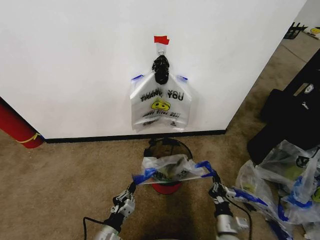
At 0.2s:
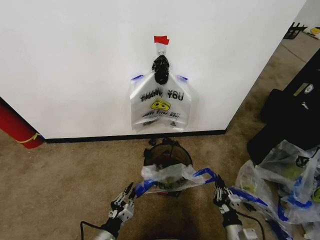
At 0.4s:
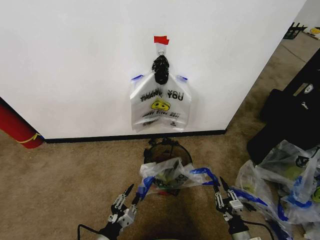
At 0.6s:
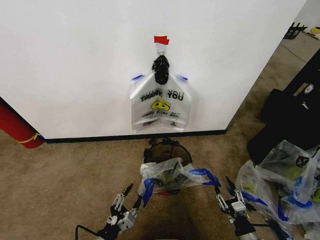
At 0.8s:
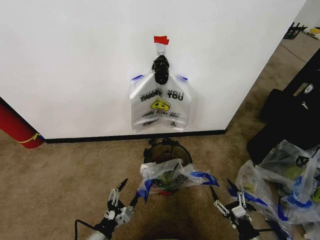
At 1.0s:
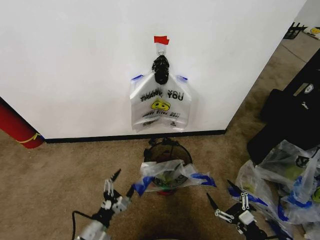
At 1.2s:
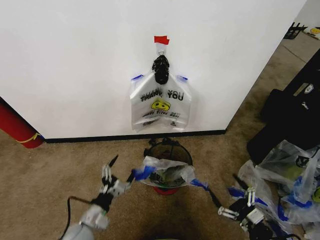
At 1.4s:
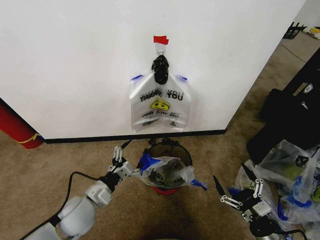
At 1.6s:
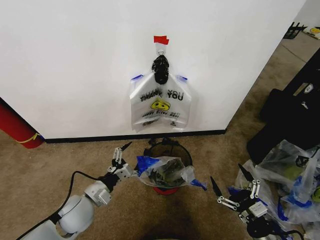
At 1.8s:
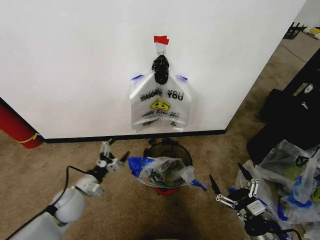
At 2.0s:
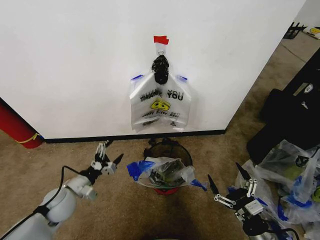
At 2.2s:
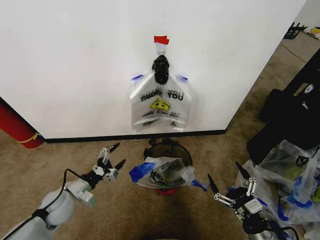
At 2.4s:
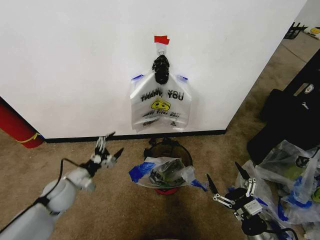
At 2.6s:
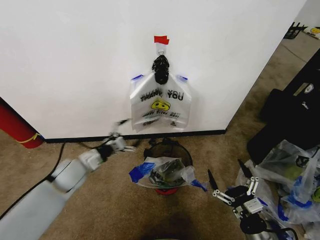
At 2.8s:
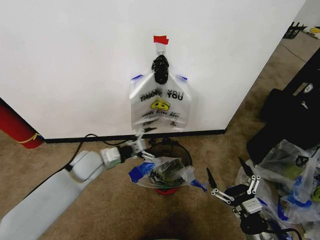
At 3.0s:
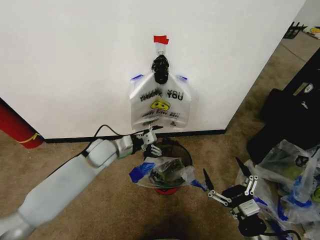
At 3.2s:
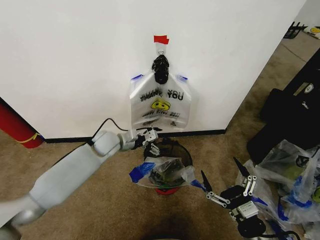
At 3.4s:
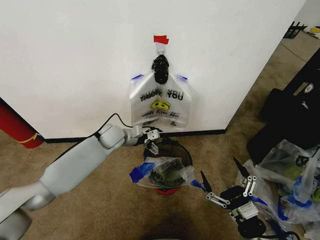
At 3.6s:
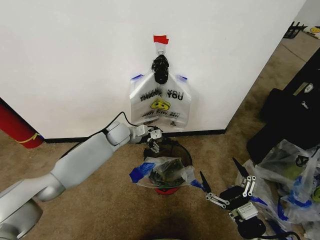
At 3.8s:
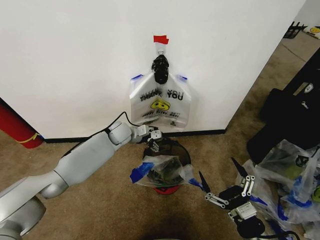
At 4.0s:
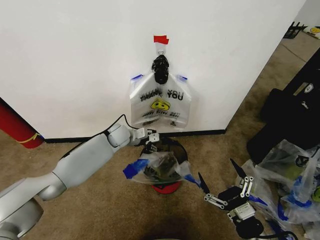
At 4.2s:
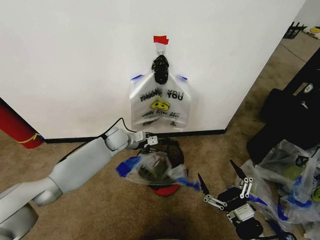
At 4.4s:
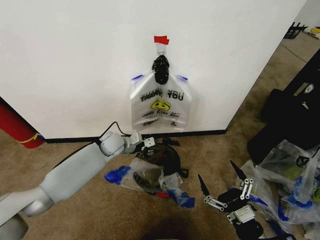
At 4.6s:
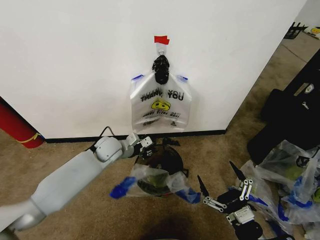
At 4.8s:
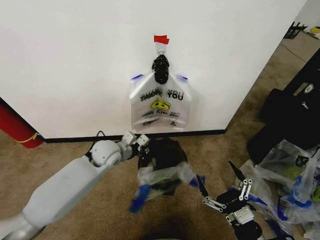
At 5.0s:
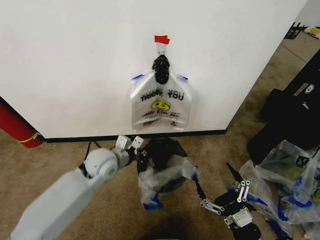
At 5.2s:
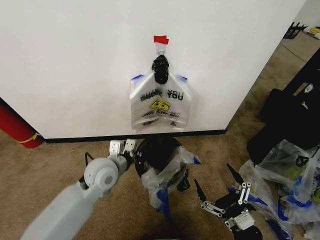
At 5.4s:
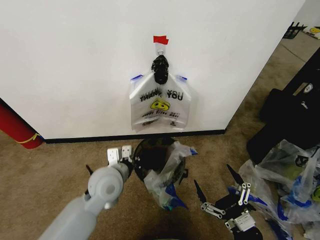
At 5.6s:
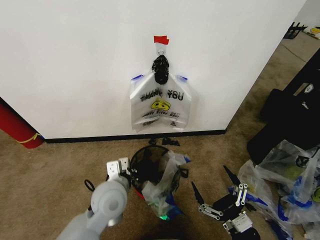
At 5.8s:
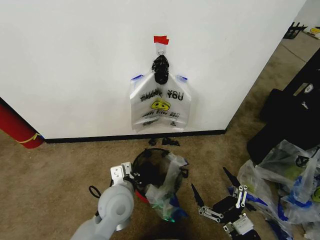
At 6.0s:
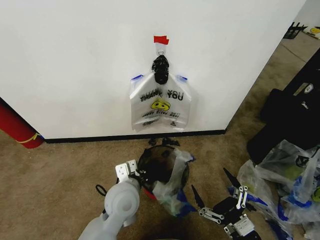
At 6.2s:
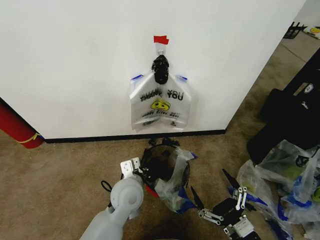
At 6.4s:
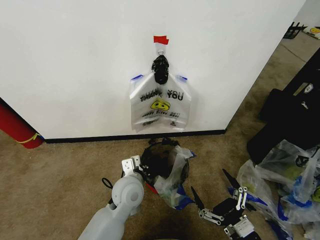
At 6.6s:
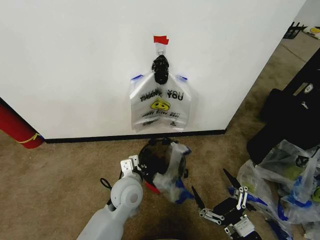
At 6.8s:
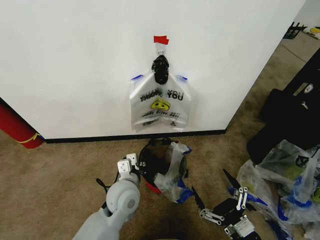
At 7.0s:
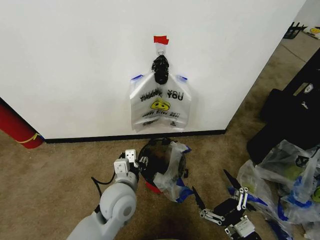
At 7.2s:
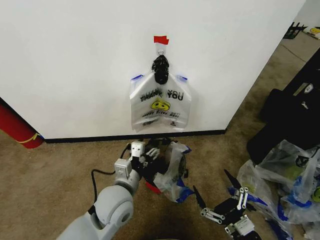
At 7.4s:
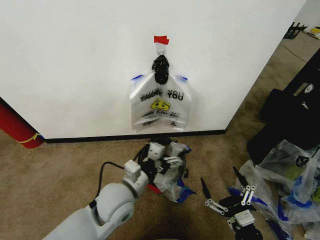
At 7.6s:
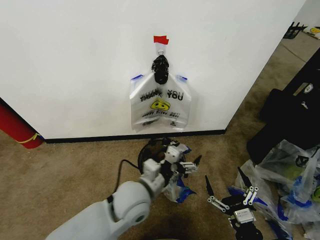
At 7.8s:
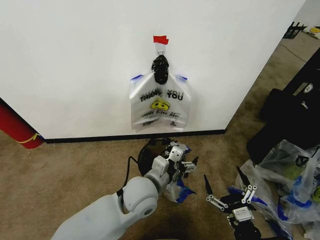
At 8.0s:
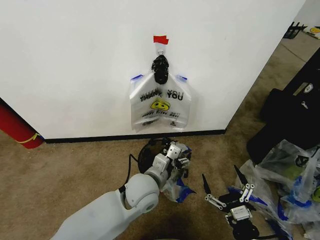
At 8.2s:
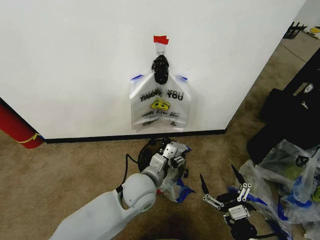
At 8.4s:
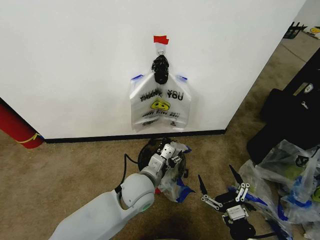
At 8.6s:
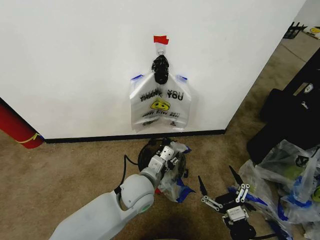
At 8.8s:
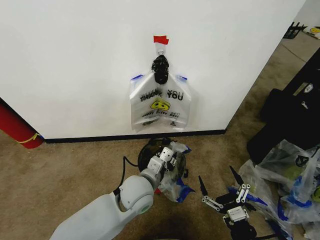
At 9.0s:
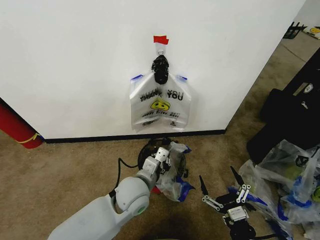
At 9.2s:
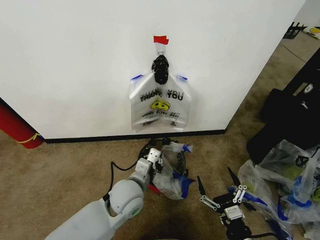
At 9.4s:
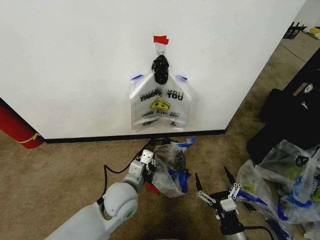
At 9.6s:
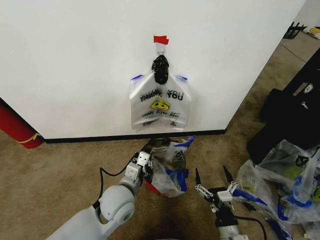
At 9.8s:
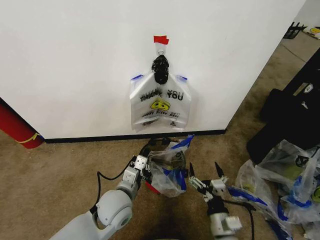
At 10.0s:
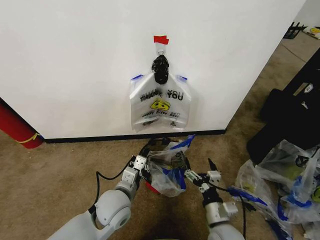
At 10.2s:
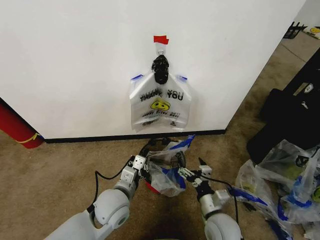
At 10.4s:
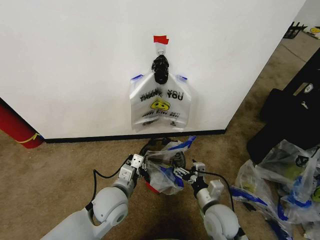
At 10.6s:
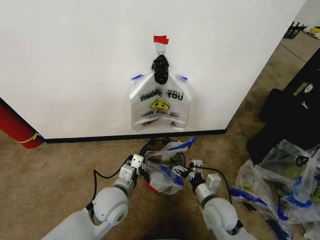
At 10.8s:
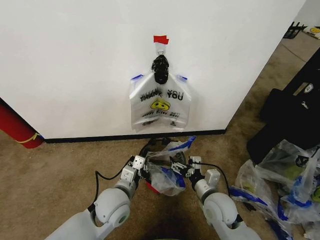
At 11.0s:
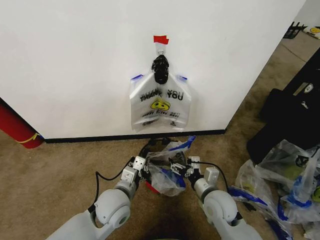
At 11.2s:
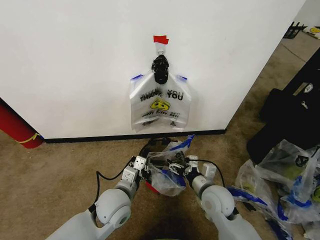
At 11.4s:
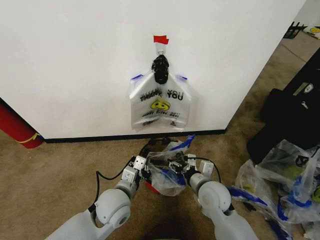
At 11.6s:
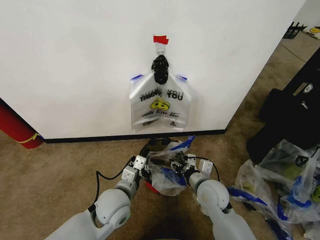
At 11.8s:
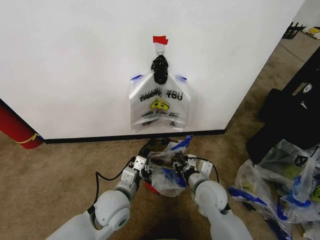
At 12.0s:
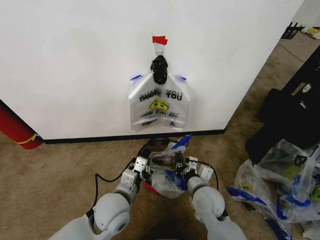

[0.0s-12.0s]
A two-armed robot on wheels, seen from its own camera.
Task of the whole recording: Pick up the garbage bag from the wall and place it over the trash bin.
0.0s to 1.6s: The left gripper is displaced upward and forward by some 15 cm, and opens up. The right gripper moves upward, to the right and backward, some 15 cm, and opens its fingers.
1.6s to 3.0s: The right gripper moves approximately 5 cm. The left gripper heads forward, covering about 15 cm.
3.0s to 4.4s: The left gripper heads forward, covering approximately 5 cm, and closes its fingers.
4.4s to 6.0s: The left gripper shifts approximately 25 cm backward.
6.0s to 7.6s: The left gripper opens.
7.6s to 9.0s: The left gripper closes its fingers.
9.0s to 10.4s: The left gripper heads to the left, covering approximately 5 cm; the right gripper moves forward and to the left, about 15 cm.
10.4s to 12.0s: The right gripper shifts approximately 5 cm forward, and closes its fingers.

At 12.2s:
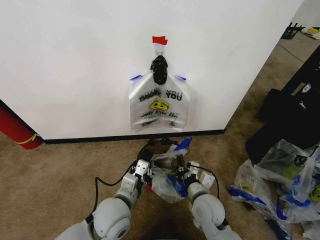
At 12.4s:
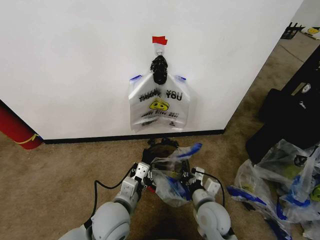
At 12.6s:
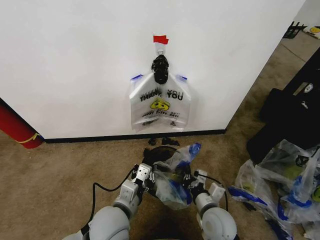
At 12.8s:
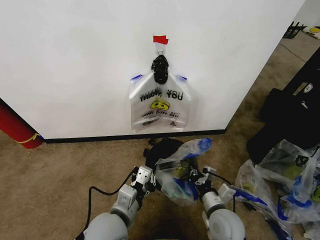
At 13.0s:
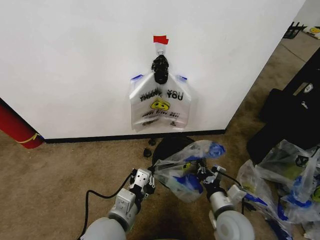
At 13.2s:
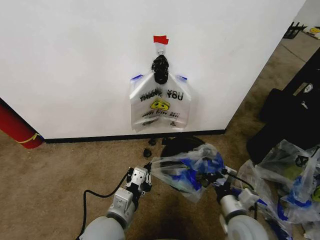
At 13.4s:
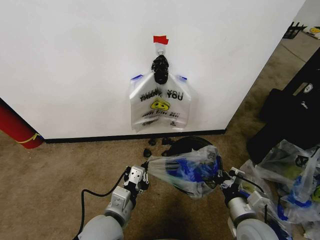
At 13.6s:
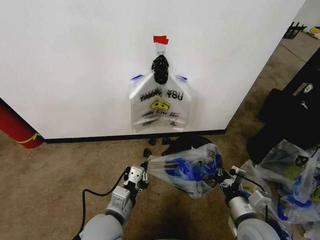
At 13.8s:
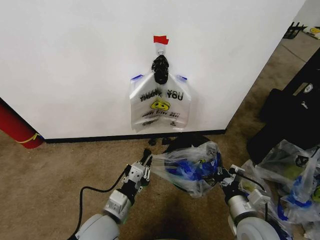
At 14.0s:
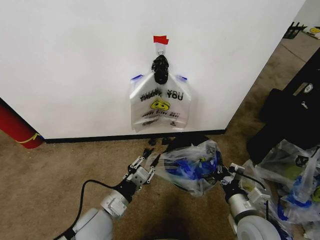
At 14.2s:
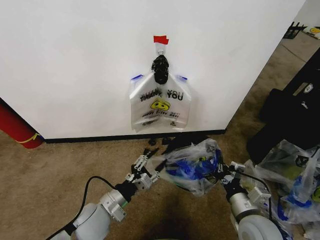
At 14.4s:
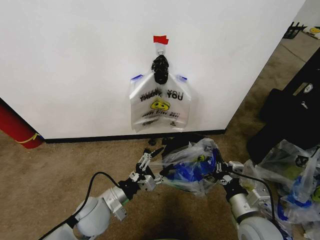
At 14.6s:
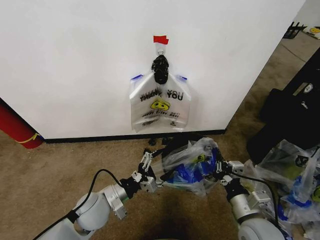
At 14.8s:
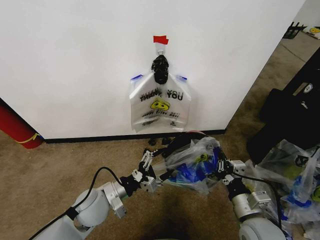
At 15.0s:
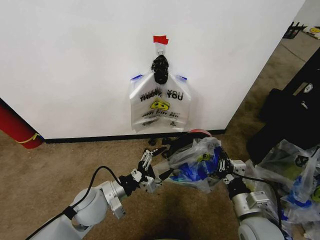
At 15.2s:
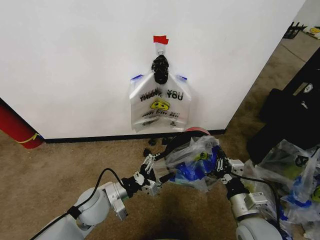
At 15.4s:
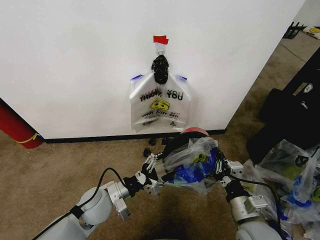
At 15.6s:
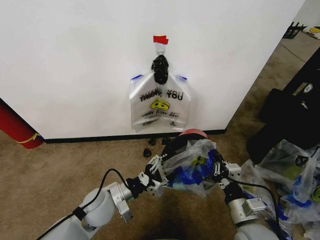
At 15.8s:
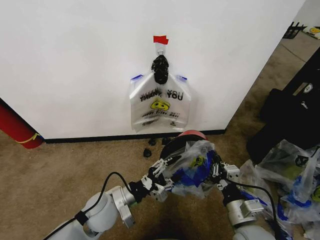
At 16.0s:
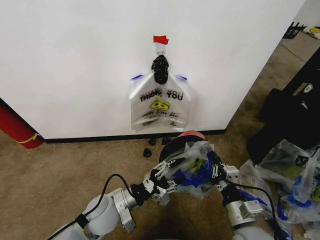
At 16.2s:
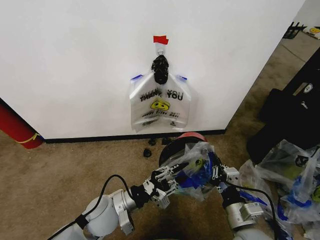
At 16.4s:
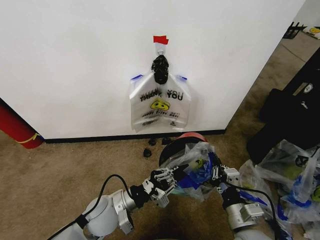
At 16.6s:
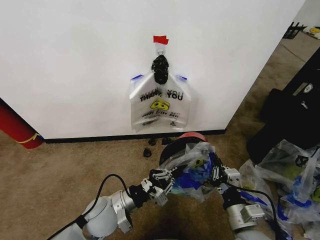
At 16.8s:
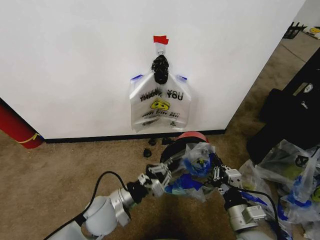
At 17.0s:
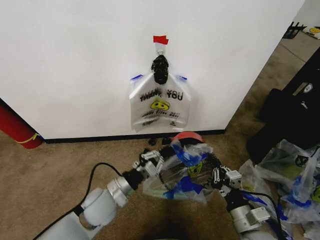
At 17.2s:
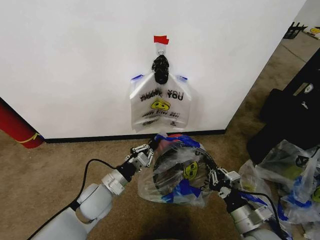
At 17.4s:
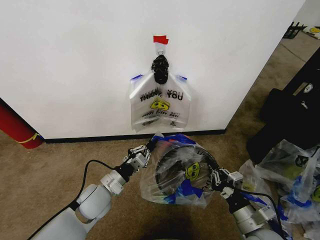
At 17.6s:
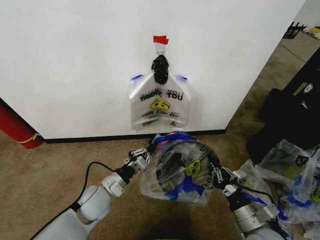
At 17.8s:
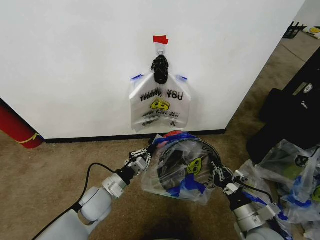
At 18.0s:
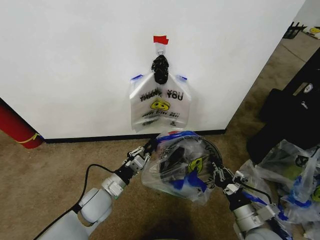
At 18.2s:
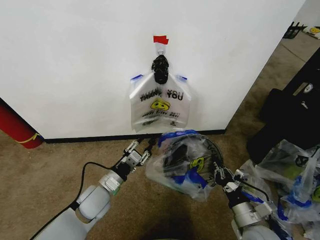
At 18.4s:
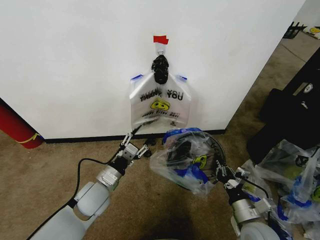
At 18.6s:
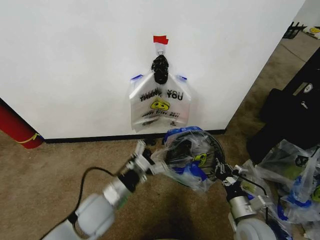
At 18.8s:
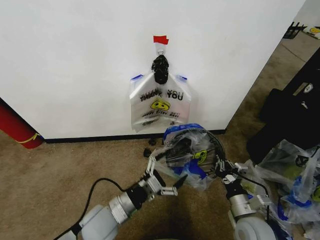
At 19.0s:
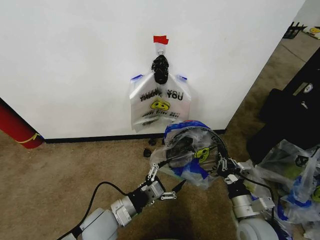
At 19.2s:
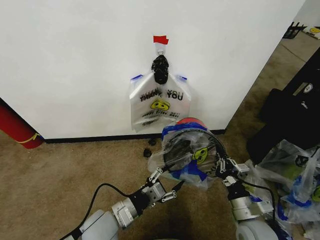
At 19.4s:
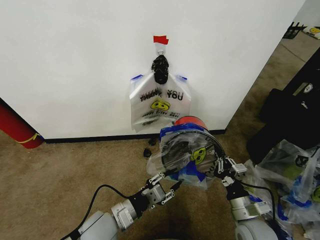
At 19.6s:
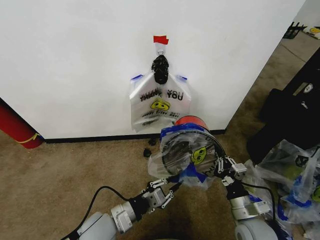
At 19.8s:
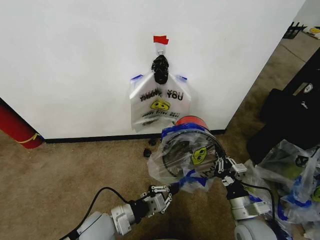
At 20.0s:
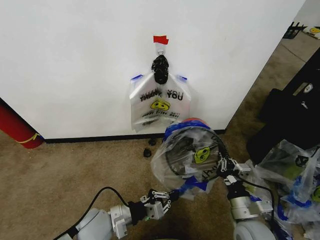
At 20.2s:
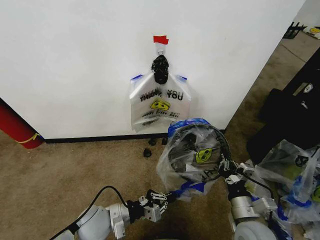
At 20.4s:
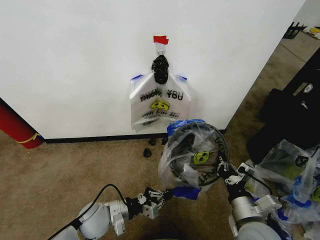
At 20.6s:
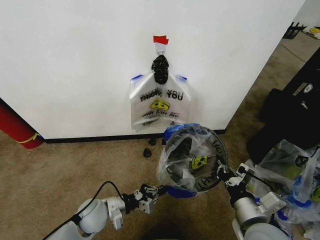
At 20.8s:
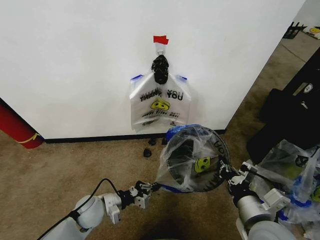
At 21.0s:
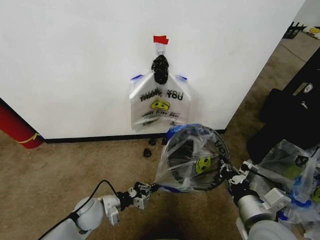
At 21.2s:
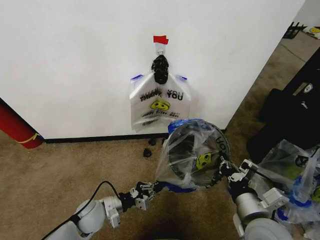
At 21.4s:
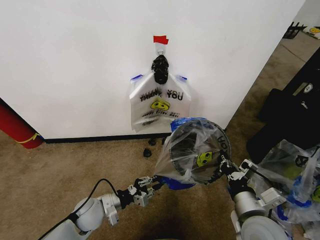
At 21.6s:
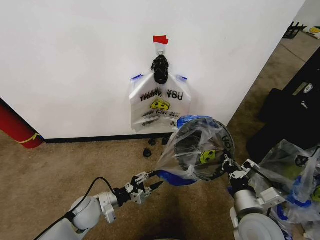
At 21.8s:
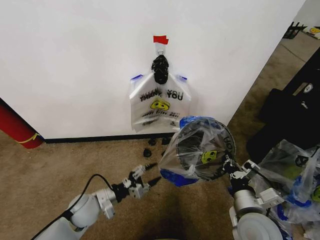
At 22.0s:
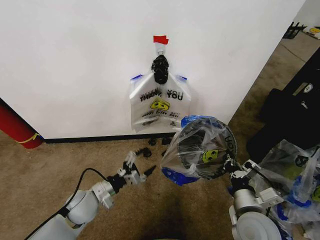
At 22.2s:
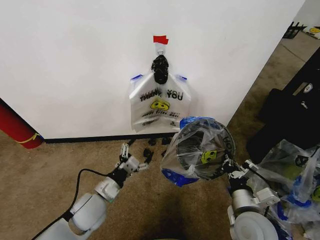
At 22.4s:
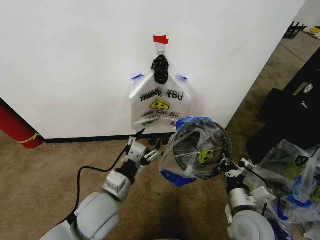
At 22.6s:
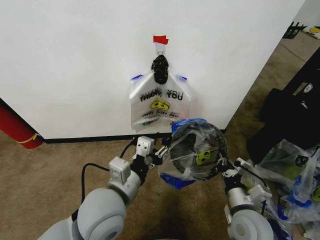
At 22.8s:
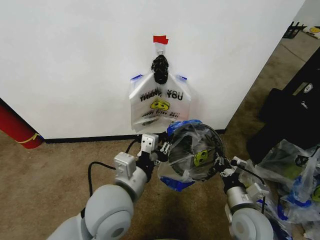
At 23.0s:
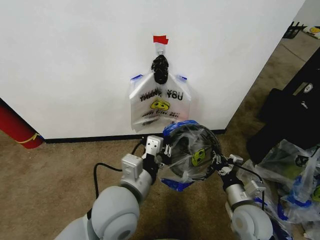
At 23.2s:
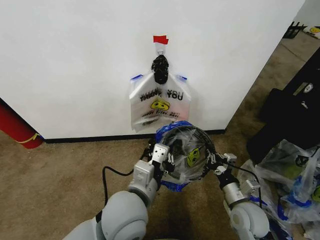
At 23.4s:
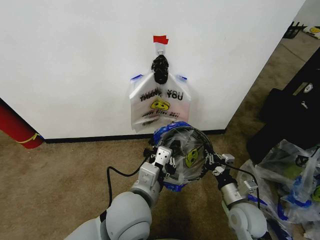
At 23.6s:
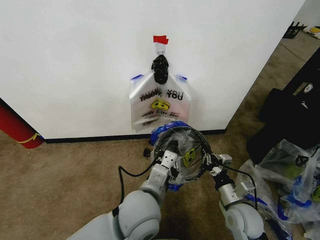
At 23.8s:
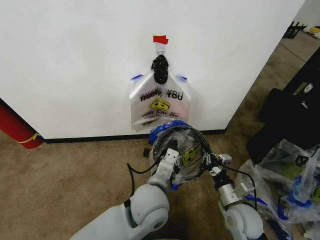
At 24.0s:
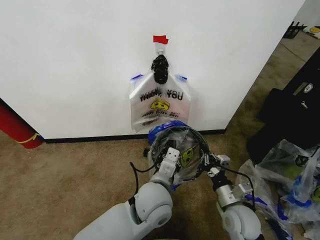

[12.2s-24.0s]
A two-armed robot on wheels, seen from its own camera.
Task of the whole recording: Pick up the garbage bag from the wall and place it over the trash bin.
12.2s to 13.6s: The right gripper heads to the right and backward, covering about 15 cm; the left gripper moves approximately 5 cm.
13.6s to 15.2s: The left gripper heads forward and to the left, covering some 10 cm, and opens its fingers.
15.2s to 16.6s: The left gripper closes.
16.6s to 18.2s: The left gripper moves about 5 cm, and opens its fingers; the right gripper moves approximately 5 cm.
18.2s to 19.6s: The left gripper moves backward, roughly 10 cm, and opens and closes again.
19.6s to 21.0s: The right gripper heads upward, covering roughly 10 cm. The left gripper travels downward, to the left and forward by approximately 15 cm.
21.0s to 22.6s: The left gripper heads upward and to the right, covering roughly 25 cm, and opens. Meanwhile the right gripper heads downward, covering roughly 5 cm.
22.6s to 24.0s: The left gripper travels to the right and downward by roughly 10 cm, and closes up.
